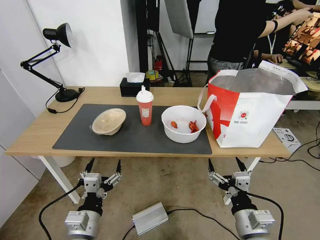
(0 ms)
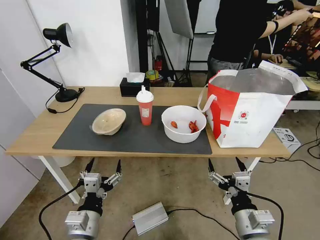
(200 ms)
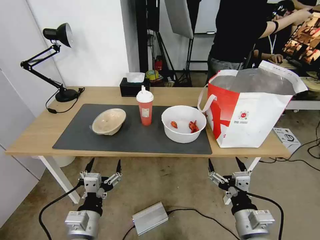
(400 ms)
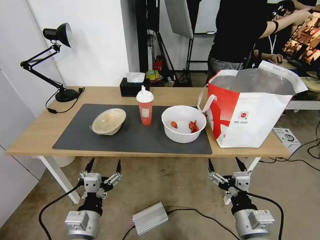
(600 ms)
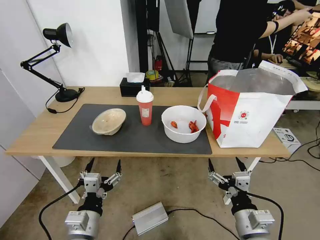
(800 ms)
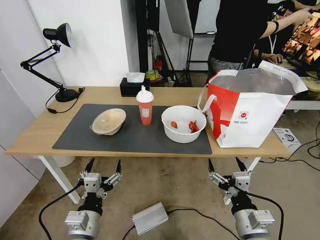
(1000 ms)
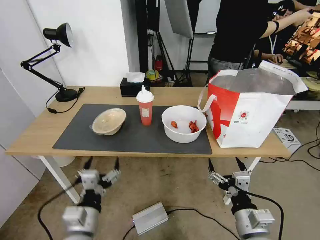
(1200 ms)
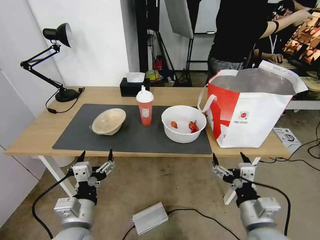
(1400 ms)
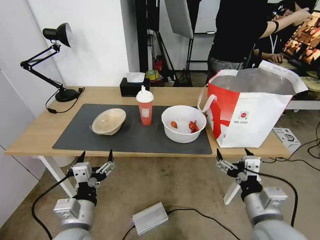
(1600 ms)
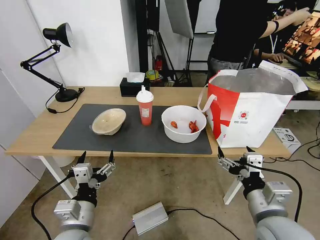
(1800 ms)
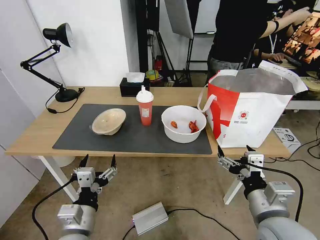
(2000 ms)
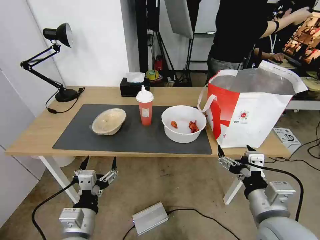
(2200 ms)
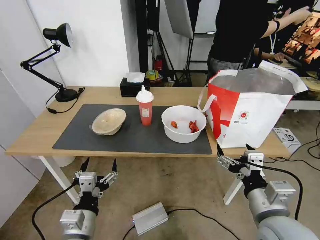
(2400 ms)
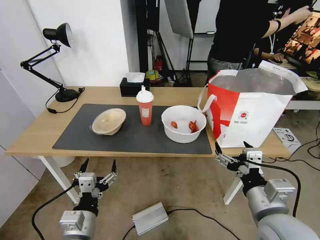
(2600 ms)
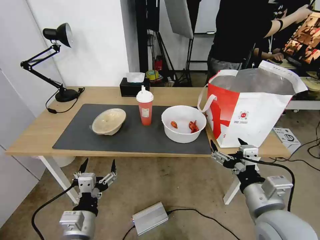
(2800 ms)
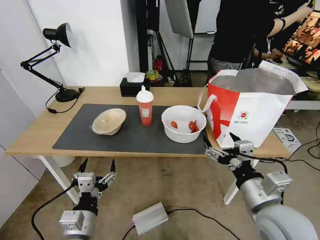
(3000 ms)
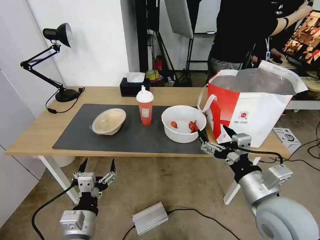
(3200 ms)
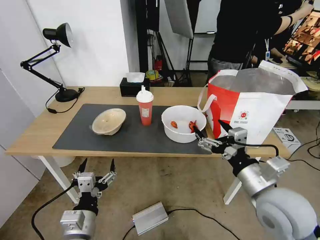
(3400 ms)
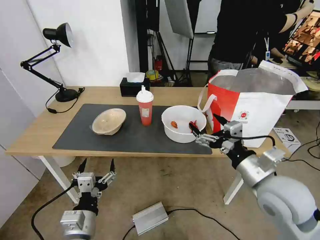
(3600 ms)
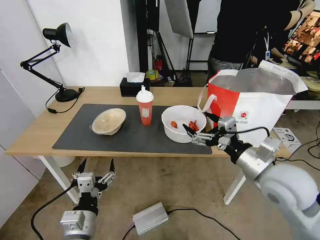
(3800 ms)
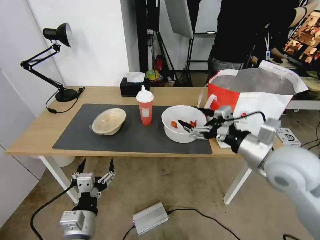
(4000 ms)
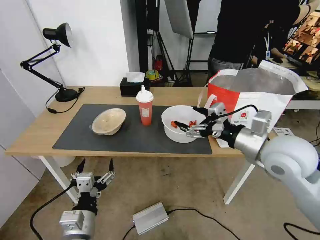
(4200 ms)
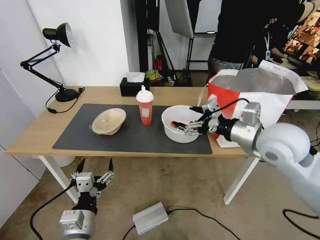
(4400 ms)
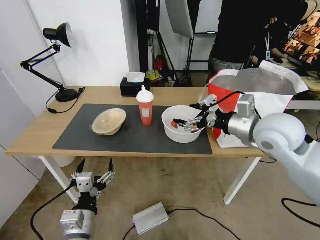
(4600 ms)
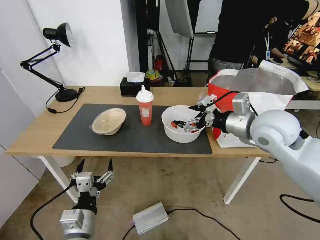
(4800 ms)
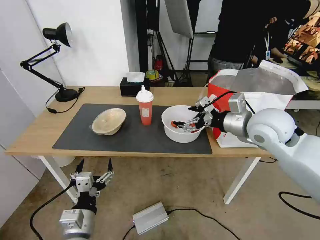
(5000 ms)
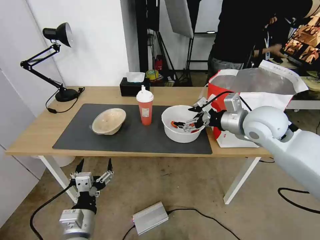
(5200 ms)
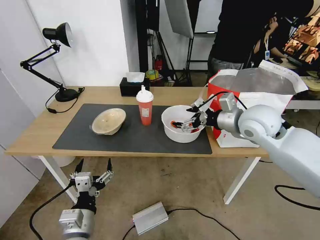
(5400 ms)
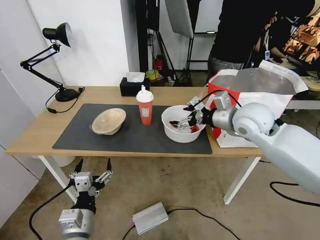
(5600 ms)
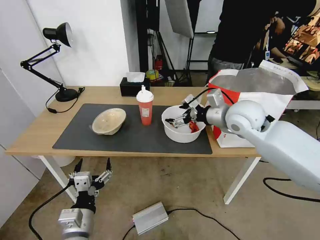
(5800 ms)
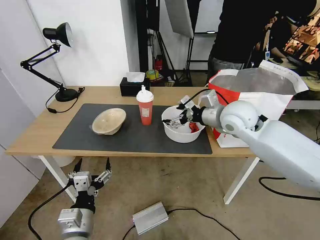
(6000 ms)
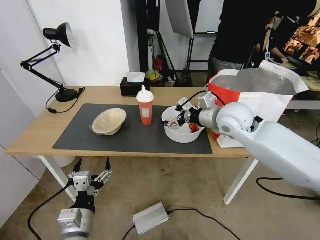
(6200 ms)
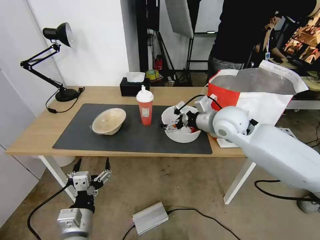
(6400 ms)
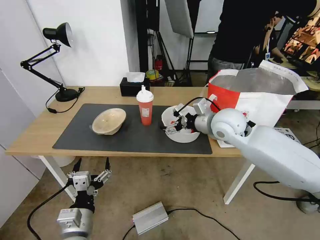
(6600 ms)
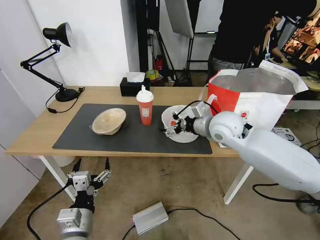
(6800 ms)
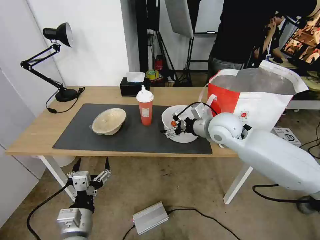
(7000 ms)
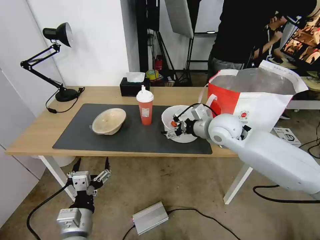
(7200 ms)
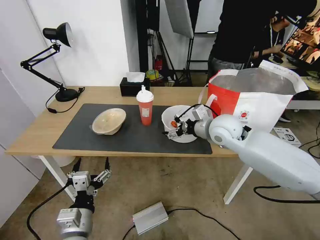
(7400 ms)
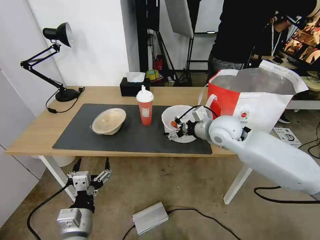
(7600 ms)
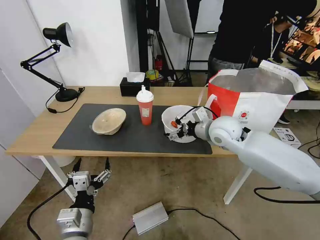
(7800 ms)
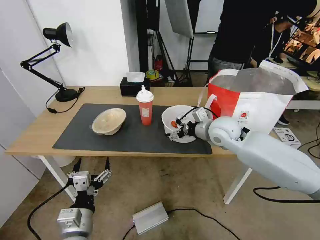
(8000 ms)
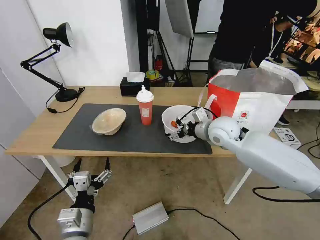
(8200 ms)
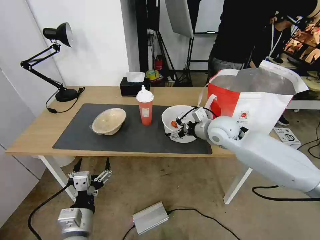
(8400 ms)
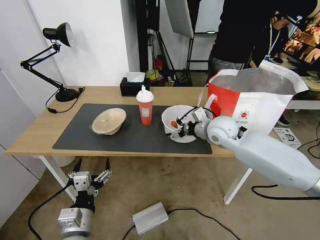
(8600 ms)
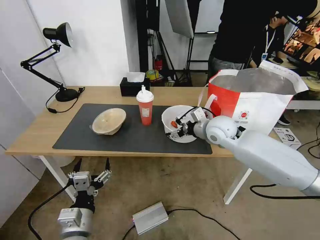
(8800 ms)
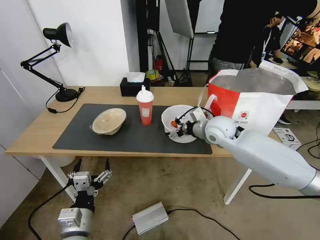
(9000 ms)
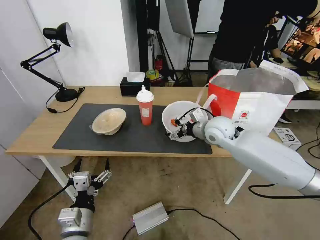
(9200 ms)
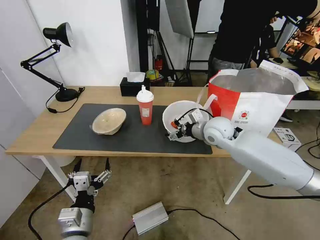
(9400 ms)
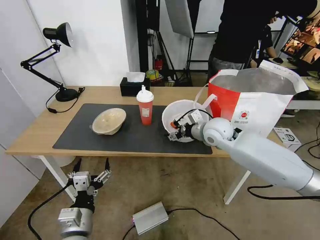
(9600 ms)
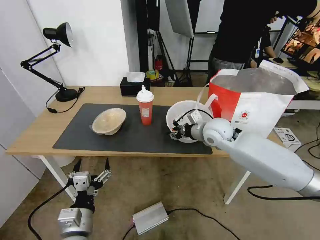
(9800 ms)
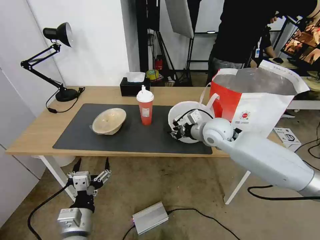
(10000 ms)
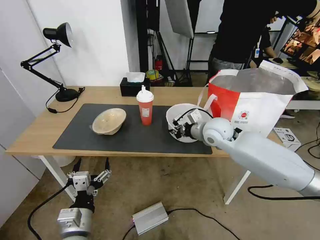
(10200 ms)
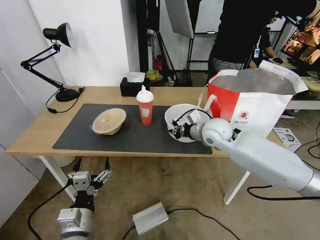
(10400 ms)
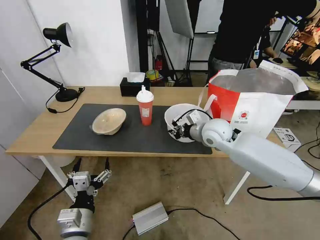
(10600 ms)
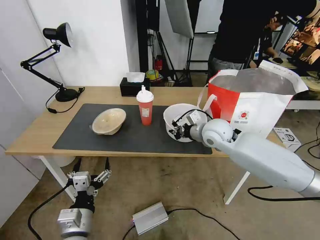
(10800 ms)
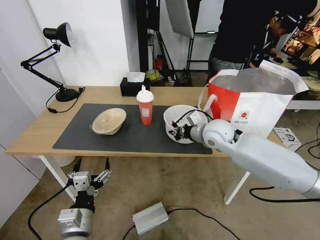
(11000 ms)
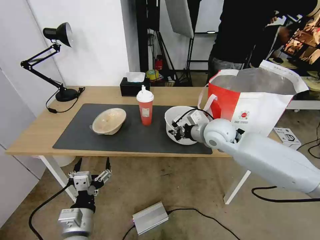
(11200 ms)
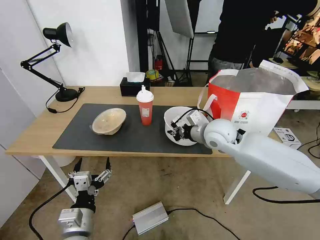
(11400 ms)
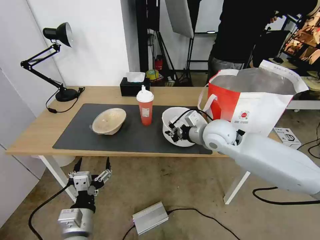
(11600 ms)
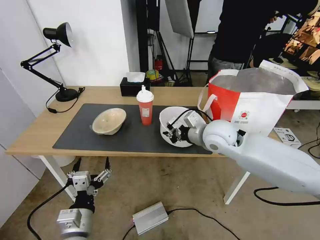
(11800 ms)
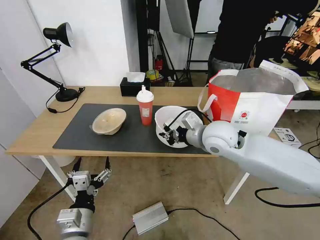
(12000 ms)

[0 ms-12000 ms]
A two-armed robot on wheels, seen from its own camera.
Task of the whole recording: Pick up the trash from the table and place it into the takeout bag.
1600 ms to 3000 ms: The grippers stay close to where they were, moving slightly.
3000 ms to 4400 ms: The right gripper goes some 20 cm forward and upward.
4400 ms to 6000 ms: The right gripper heads forward, covering some 10 cm.
6000 ms to 7600 ms: The right gripper heads downward, covering about 5 cm.
7600 ms to 9000 ms: The grippers make only small movements.
9000 ms to 10400 ms: The right gripper closes its fingers.
10400 ms to 12000 ms: The right gripper heads backward, covering approximately 5 cm.

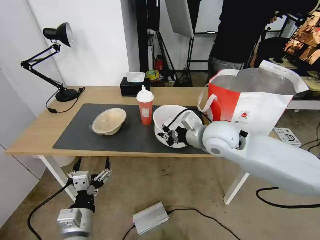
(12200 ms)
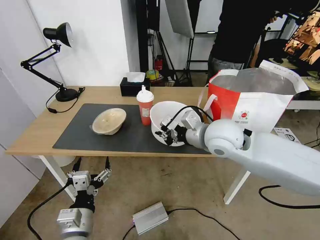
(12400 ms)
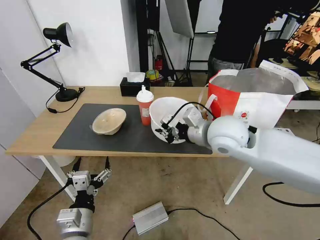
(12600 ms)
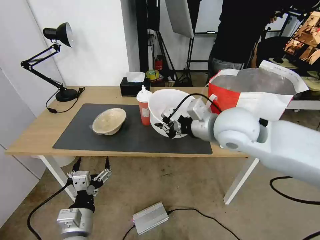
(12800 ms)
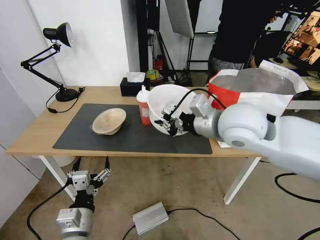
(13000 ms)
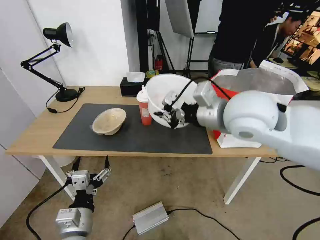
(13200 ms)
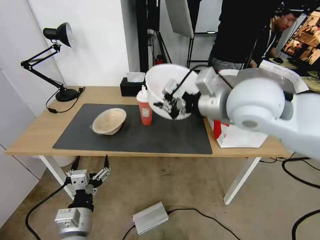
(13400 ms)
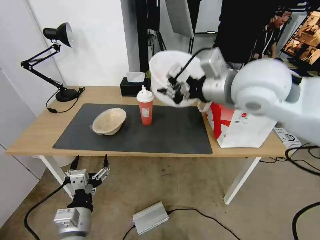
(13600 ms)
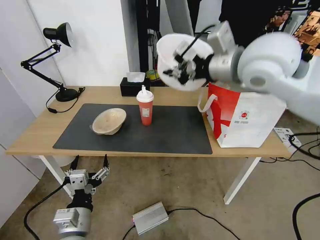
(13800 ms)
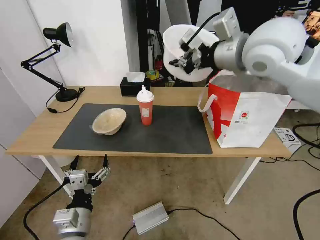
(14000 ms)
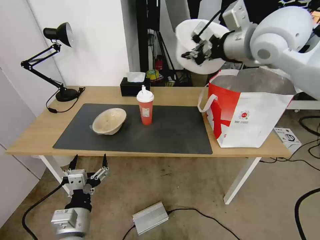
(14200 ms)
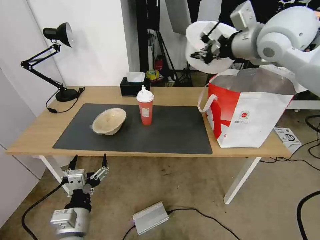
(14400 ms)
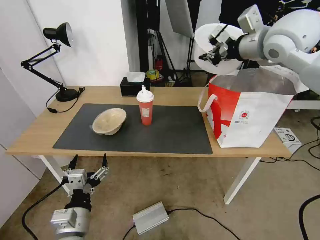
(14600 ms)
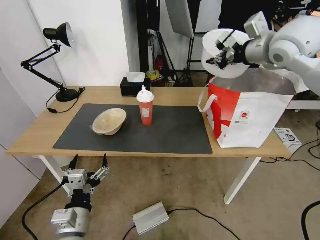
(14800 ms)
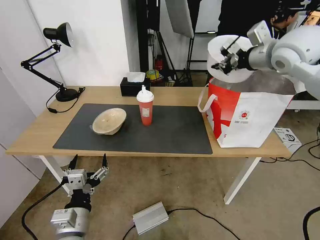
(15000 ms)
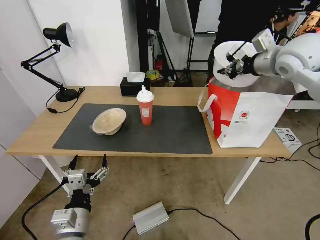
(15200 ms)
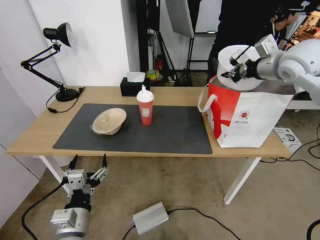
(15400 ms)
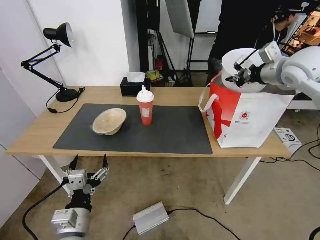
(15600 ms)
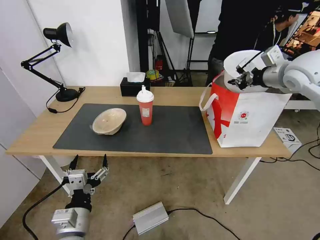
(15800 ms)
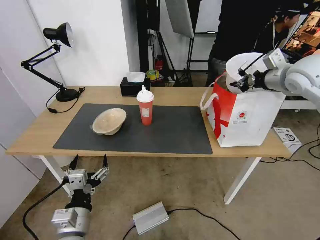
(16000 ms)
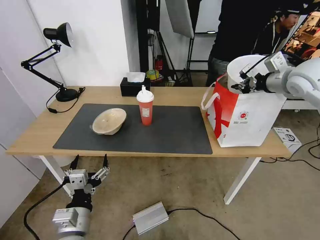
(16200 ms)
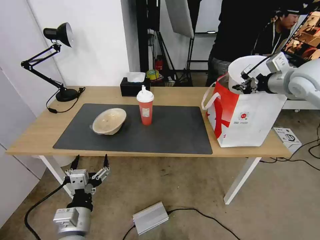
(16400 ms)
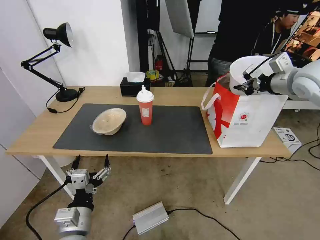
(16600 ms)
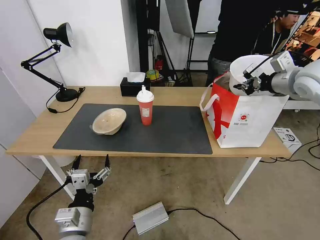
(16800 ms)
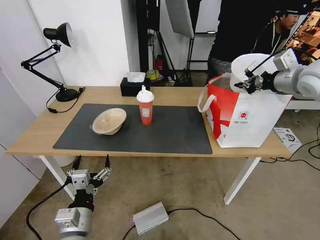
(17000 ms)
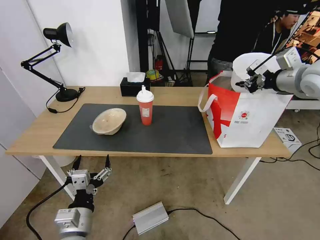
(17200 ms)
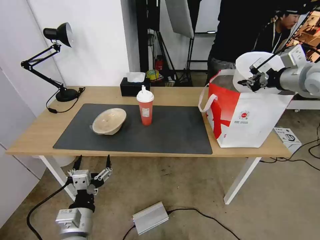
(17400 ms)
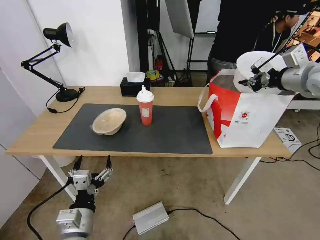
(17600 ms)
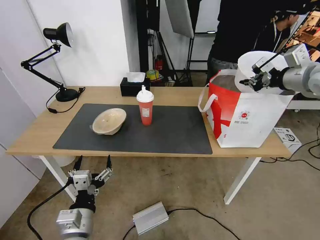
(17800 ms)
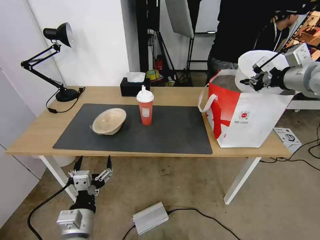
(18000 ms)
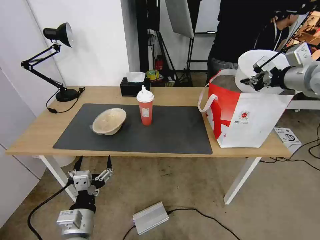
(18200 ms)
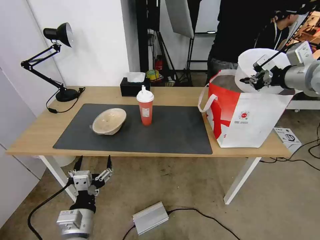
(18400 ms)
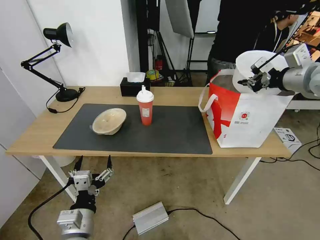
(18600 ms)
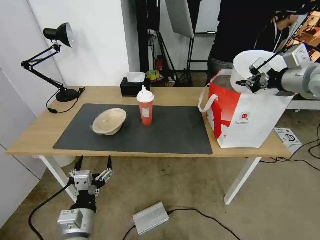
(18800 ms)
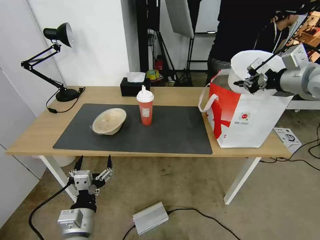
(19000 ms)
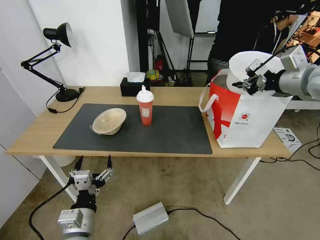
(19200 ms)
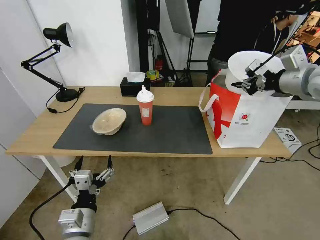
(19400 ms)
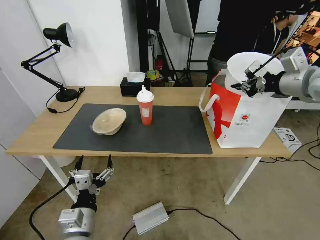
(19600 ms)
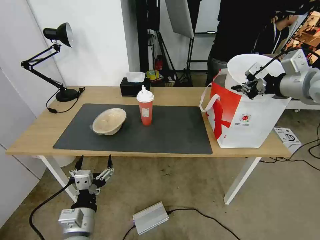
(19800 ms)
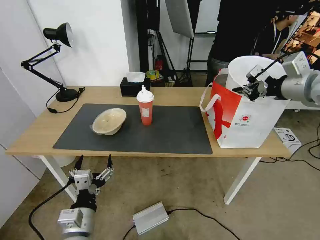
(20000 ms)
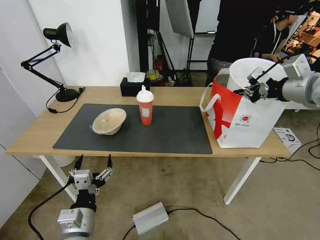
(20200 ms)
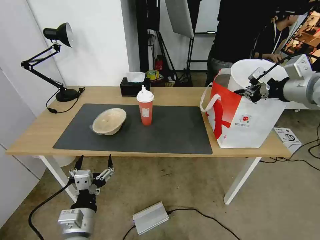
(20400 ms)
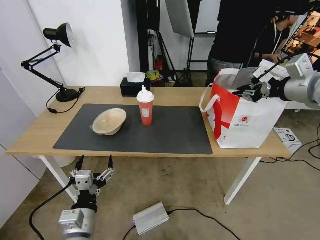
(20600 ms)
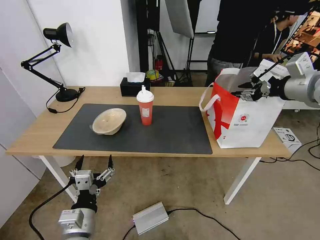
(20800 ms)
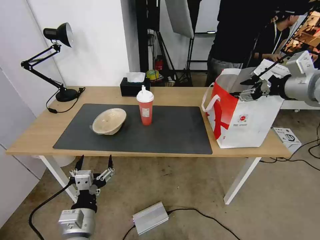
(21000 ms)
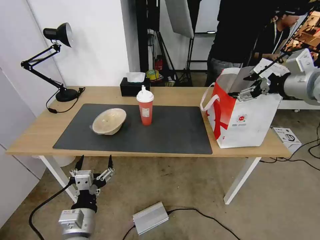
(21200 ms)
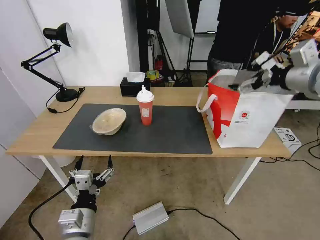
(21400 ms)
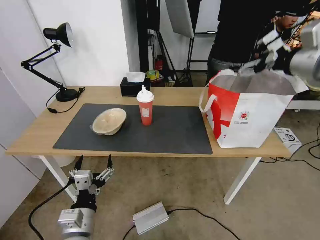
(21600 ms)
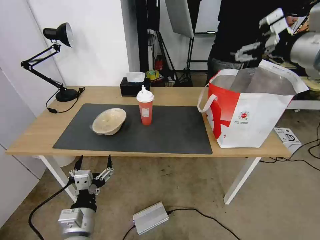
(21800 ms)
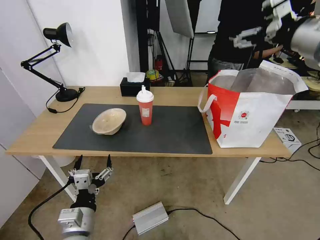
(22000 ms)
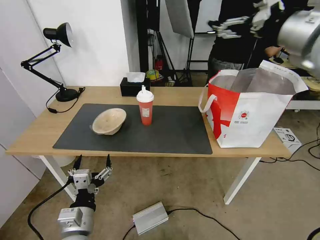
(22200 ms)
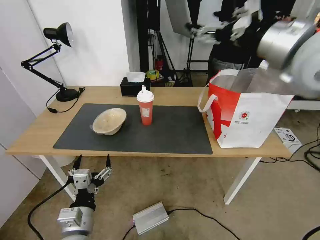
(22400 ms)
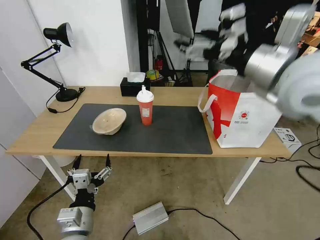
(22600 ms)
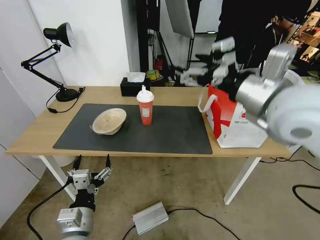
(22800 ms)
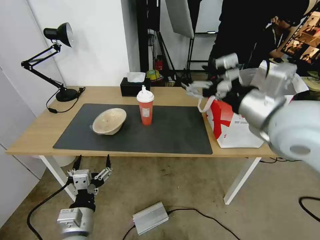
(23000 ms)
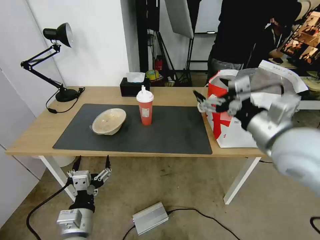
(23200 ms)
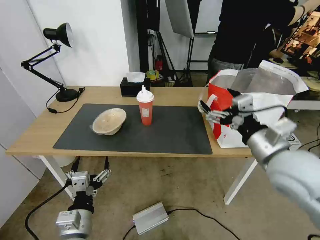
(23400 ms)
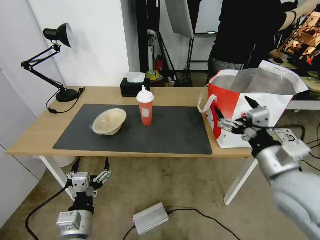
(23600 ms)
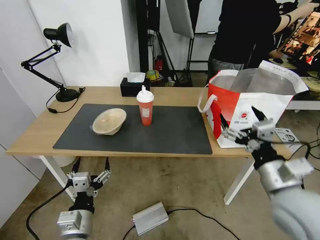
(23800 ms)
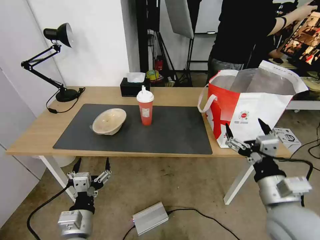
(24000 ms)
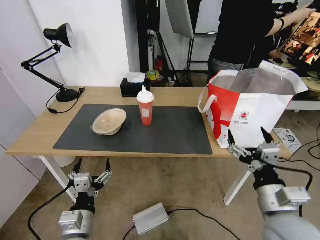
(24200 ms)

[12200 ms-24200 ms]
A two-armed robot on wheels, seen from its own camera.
Task of the whole recording: Pick up the trash from the table and place it into the takeout bag.
12200 ms to 13800 ms: The right gripper is displaced upward by approximately 20 cm.
13800 ms to 15200 ms: The right gripper heads to the right and forward, covering roughly 20 cm.
15200 ms to 16600 ms: The right gripper is displaced to the right by some 5 cm.
16600 ms to 18200 ms: The grippers make only small movements.
18200 ms to 19800 ms: There are only small adjustments of the grippers.
19800 ms to 21200 ms: The right gripper opens its fingers.
21200 ms to 22600 ms: The right gripper shifts some 15 cm to the left and backward.
22600 ms to 24200 ms: The right gripper goes some 30 cm downward and backward.
